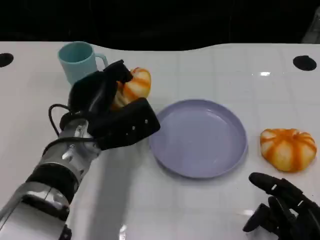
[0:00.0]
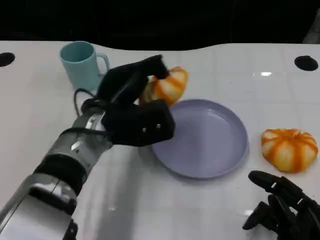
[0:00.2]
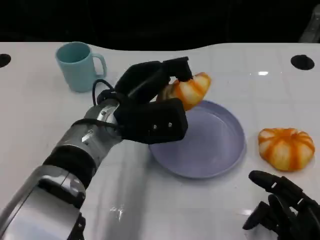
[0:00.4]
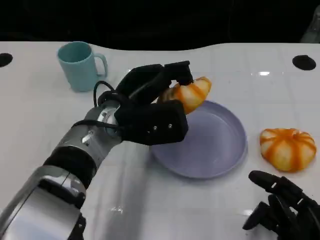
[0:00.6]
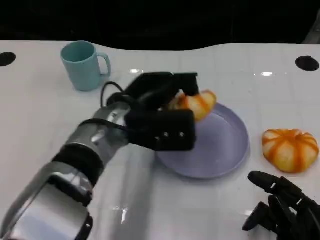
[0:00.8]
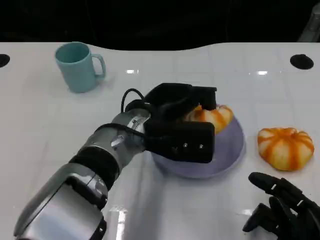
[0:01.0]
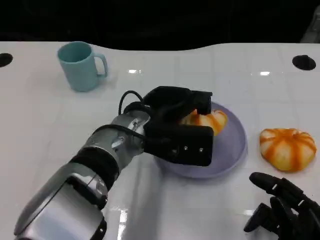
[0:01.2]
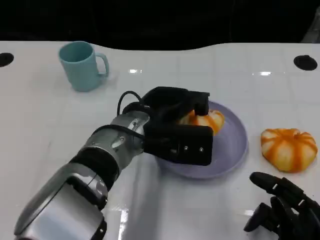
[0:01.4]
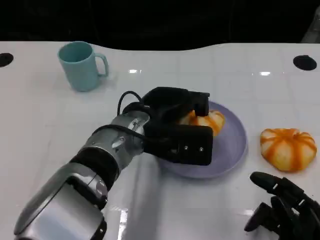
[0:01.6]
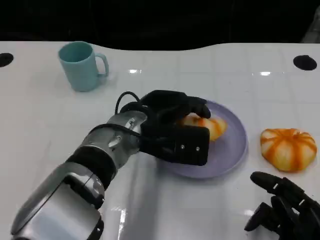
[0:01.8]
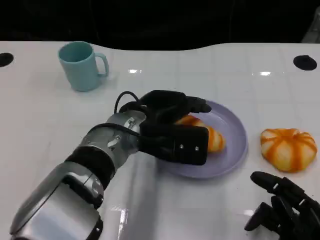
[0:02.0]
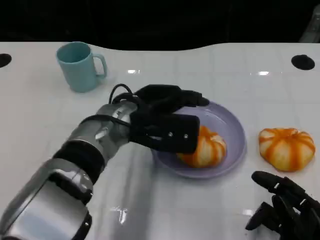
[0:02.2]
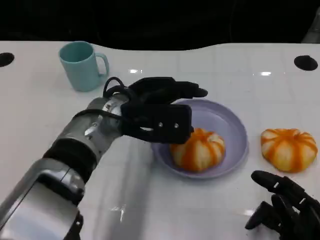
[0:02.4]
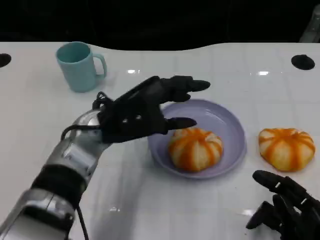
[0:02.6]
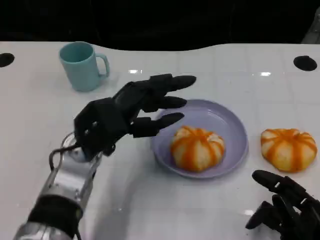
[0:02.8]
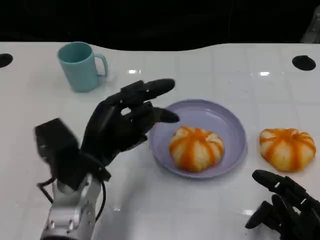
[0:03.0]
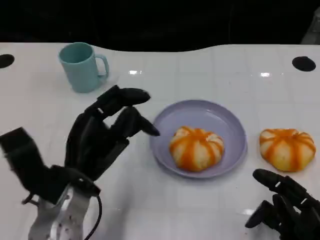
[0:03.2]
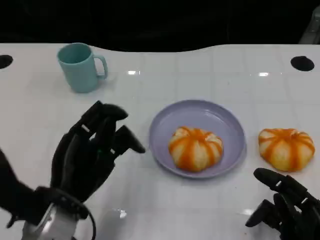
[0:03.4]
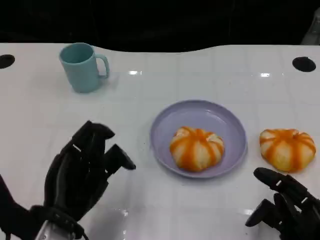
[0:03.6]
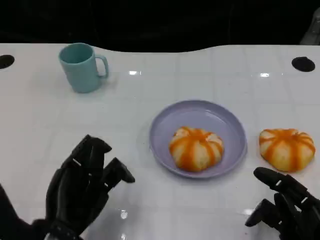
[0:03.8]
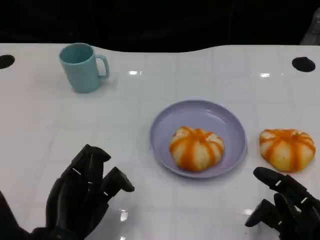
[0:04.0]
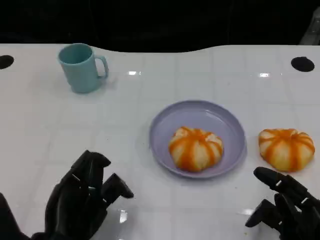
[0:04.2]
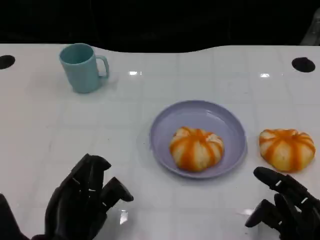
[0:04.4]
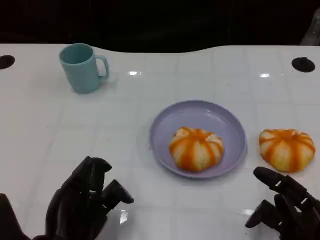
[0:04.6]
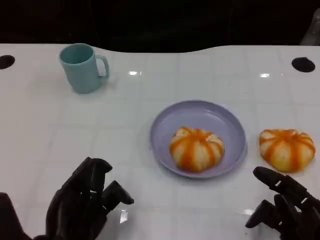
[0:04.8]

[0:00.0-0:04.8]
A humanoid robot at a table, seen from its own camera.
Task of the whole recording: Grasp the bread from the table and place it into the plate.
0:00.0 to 0:01.6: The left hand is displaced to the right by some 5 cm.
0:01.6 to 0:03.2: The left hand travels to the left and backward by some 15 cm.
0:03.2 to 0:04.8: The left hand heads backward, covering about 10 cm.

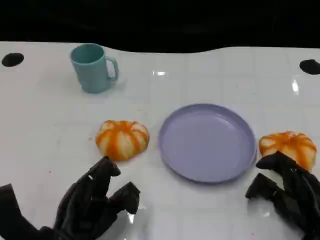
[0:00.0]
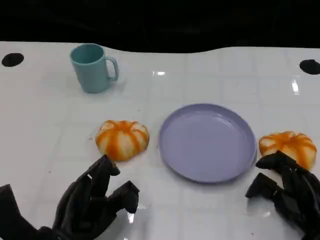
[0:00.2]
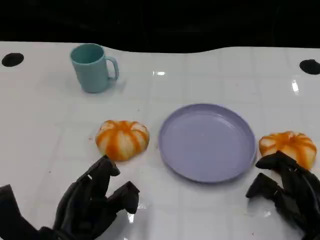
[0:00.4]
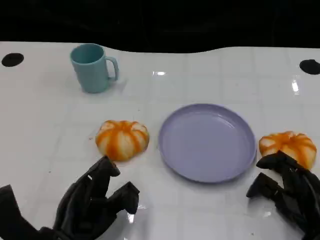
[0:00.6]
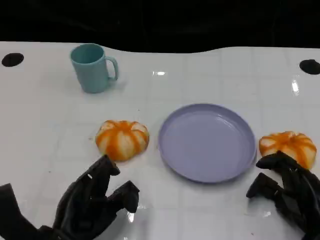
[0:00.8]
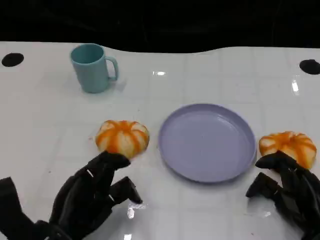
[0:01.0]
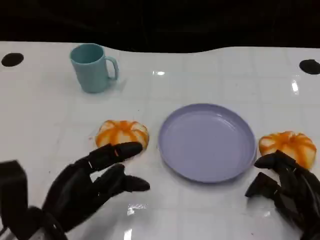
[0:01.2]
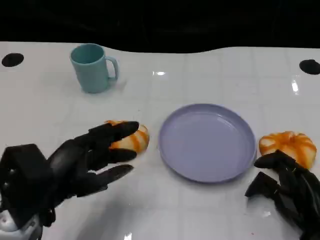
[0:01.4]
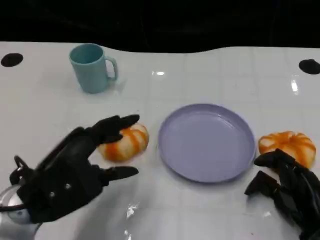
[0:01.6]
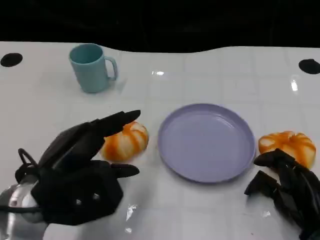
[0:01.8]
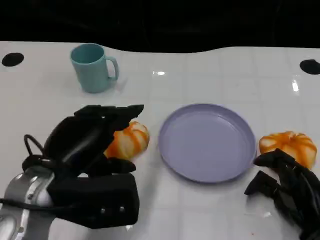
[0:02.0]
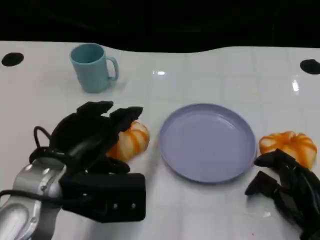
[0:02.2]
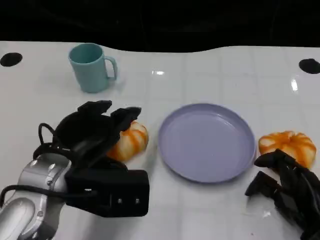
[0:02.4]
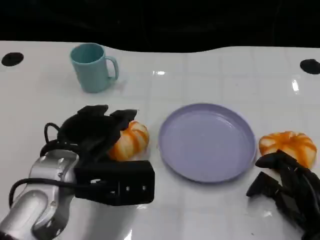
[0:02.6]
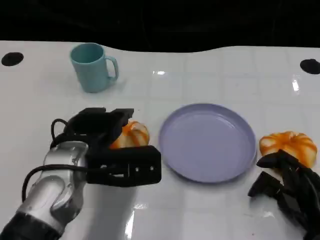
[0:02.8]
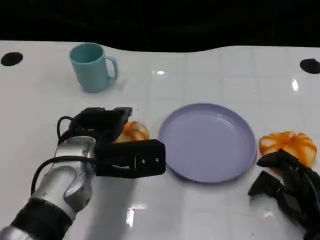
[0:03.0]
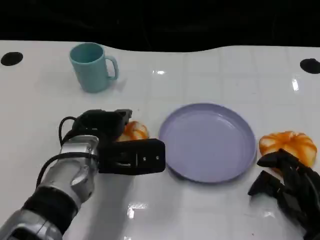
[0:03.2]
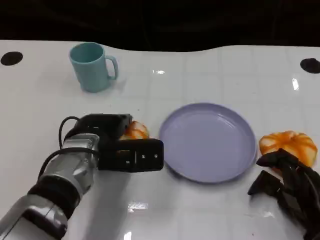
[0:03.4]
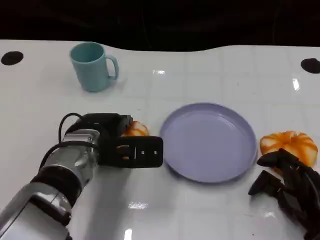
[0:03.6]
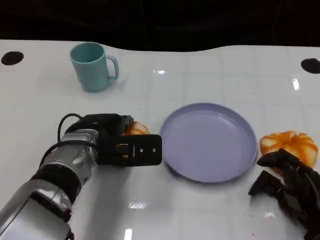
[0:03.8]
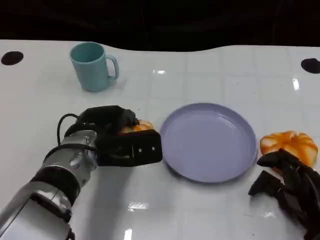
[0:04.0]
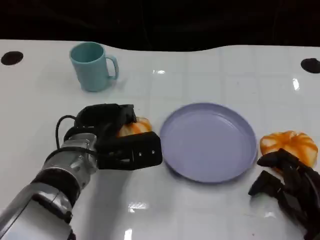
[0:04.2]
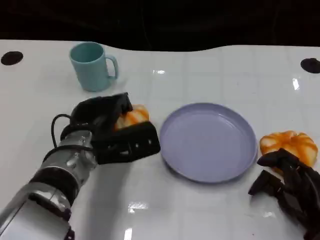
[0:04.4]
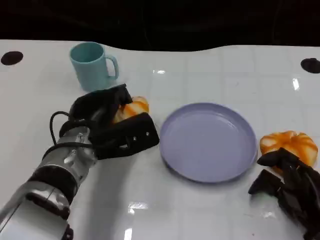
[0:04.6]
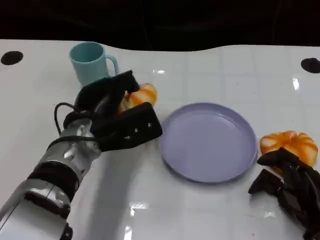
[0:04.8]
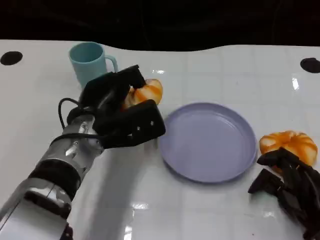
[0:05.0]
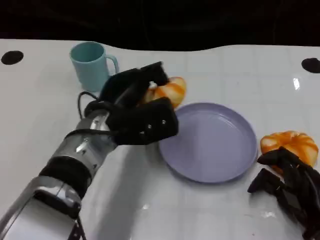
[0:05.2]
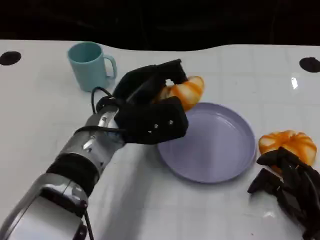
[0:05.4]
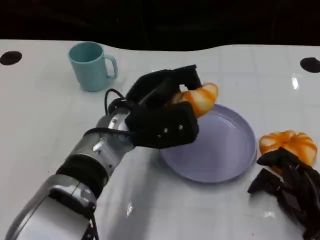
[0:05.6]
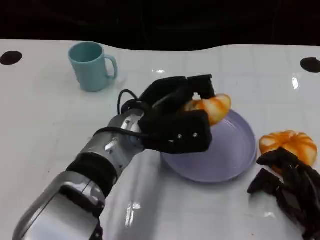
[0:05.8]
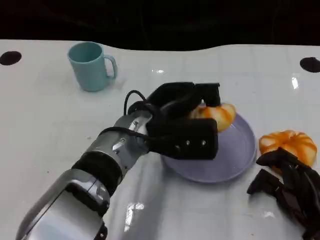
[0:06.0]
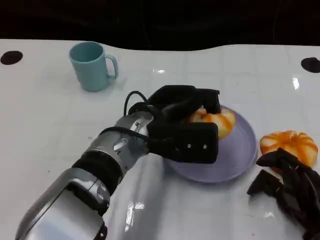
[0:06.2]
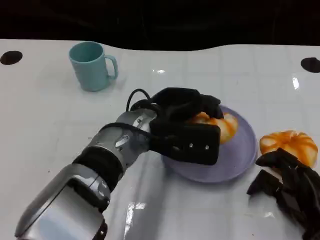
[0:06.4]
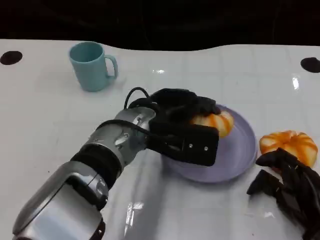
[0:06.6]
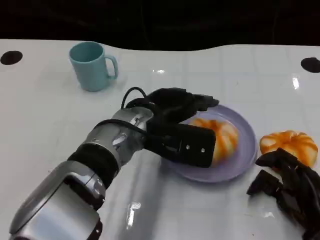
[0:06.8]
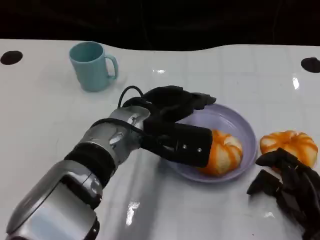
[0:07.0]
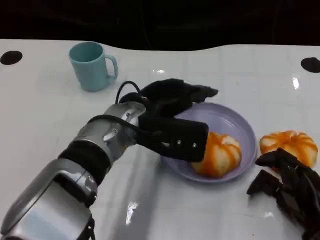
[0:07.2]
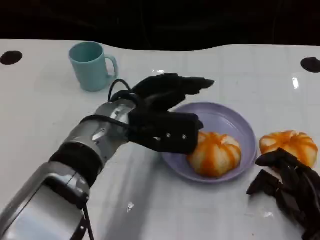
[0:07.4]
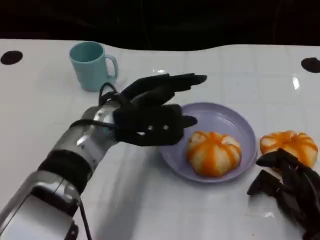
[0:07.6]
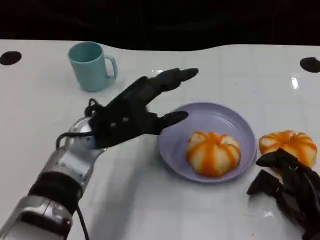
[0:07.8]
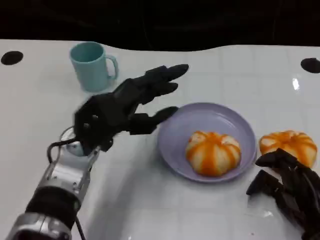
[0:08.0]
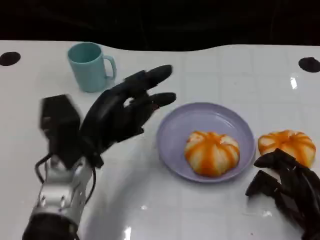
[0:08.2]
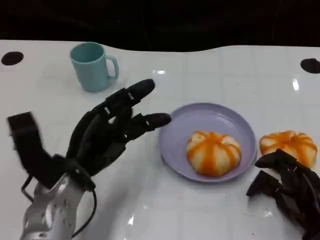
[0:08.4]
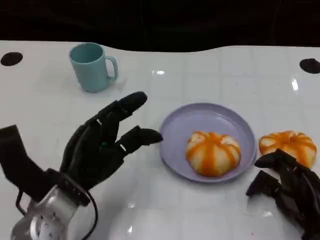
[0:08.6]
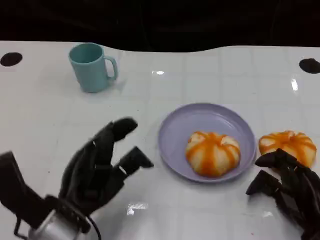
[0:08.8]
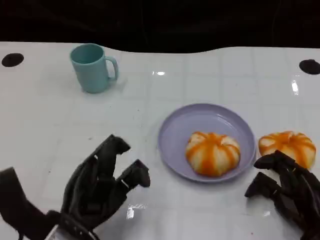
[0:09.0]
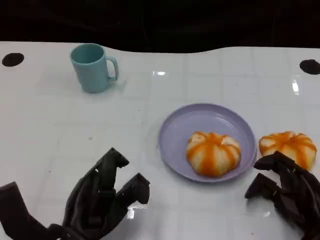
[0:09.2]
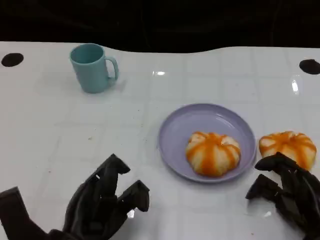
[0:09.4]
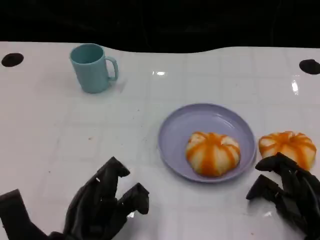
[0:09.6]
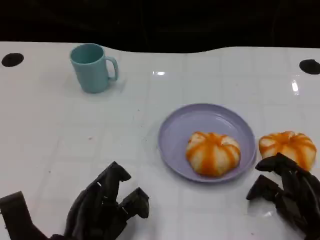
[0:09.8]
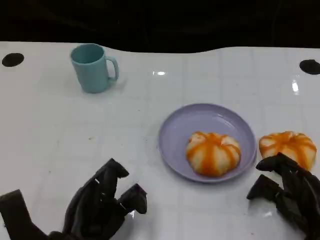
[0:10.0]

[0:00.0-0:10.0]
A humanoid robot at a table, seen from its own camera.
Task of the whole recording: Grasp the bread from the table and place it into the plate.
0:00.0 to 0:01.4: The left hand heads upward, covering some 10 cm.
0:01.4 to 0:02.8: The left hand is displaced forward and to the right by roughly 10 cm.
0:02.8 to 0:04.2: The left hand shifts by roughly 5 cm.
0:04.2 to 0:05.8: The left hand is displaced to the right and upward by about 10 cm.
0:07.2 to 0:08.6: The left hand is displaced to the left, backward and downward by approximately 15 cm.
0:08.6 to 0:10.0: The left hand heads backward, covering about 5 cm.

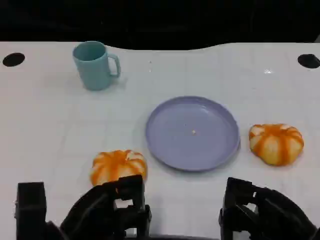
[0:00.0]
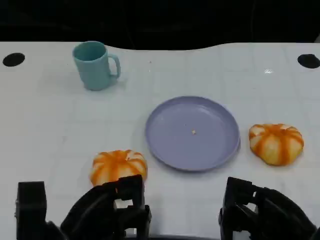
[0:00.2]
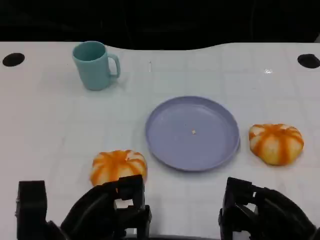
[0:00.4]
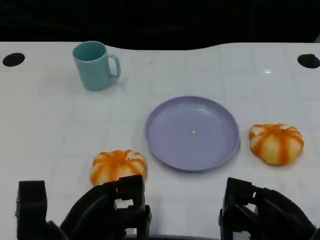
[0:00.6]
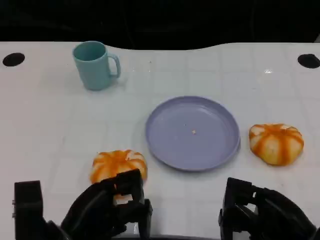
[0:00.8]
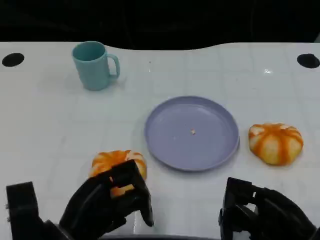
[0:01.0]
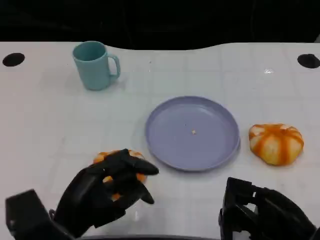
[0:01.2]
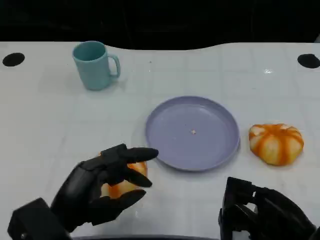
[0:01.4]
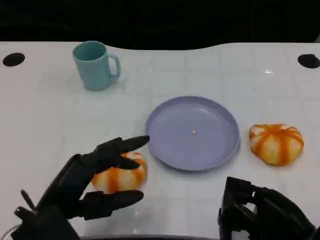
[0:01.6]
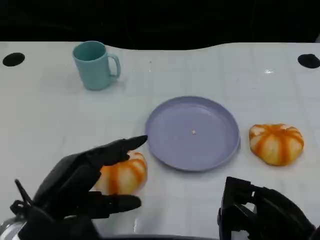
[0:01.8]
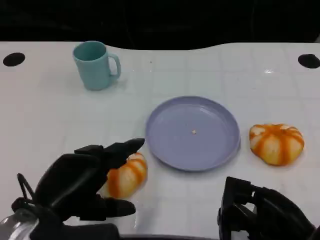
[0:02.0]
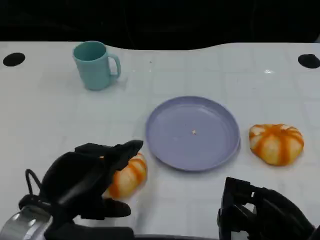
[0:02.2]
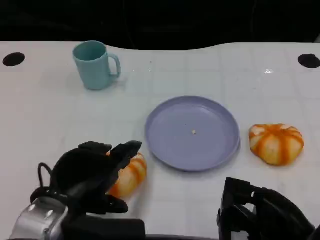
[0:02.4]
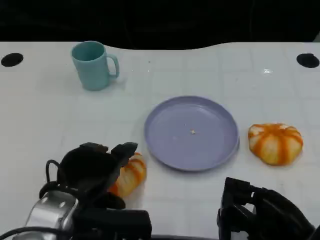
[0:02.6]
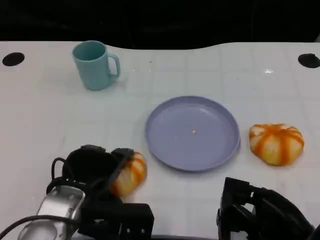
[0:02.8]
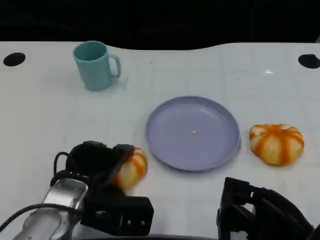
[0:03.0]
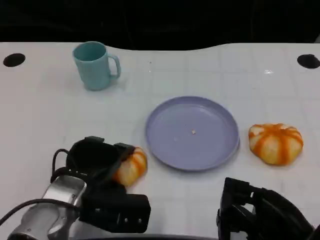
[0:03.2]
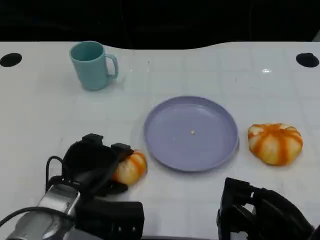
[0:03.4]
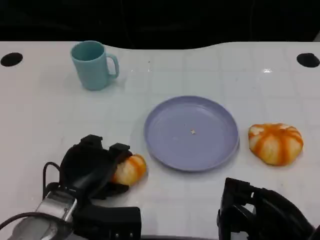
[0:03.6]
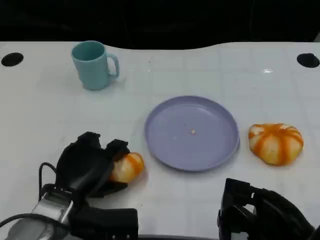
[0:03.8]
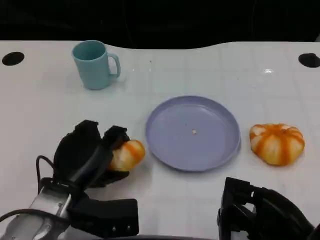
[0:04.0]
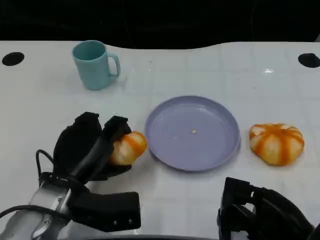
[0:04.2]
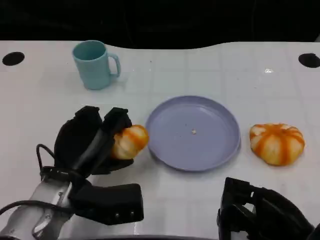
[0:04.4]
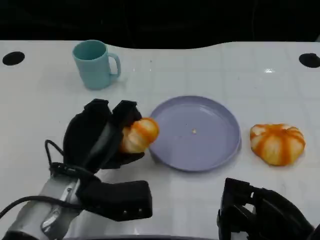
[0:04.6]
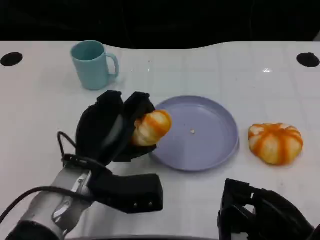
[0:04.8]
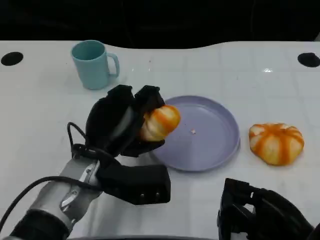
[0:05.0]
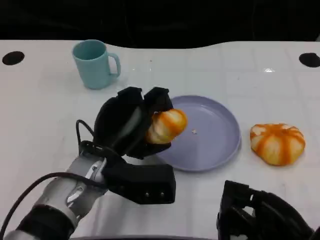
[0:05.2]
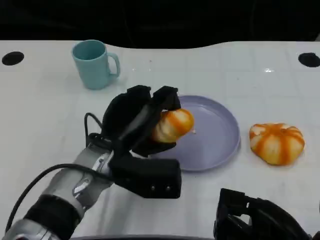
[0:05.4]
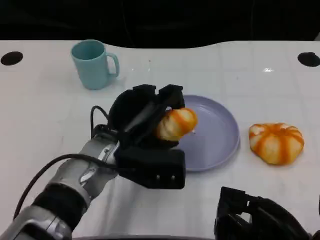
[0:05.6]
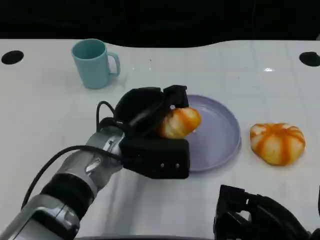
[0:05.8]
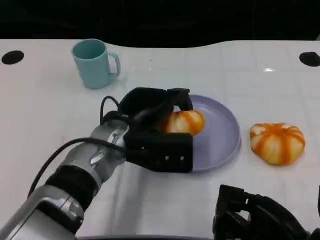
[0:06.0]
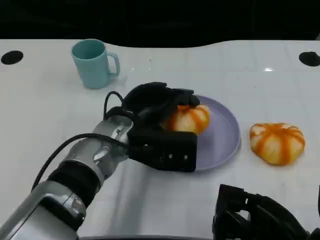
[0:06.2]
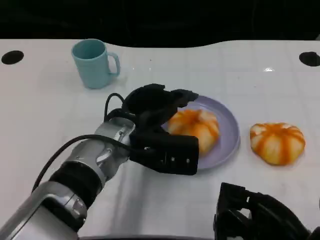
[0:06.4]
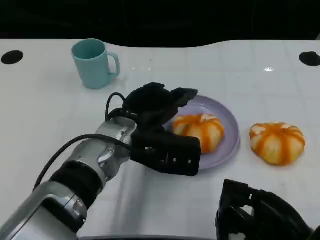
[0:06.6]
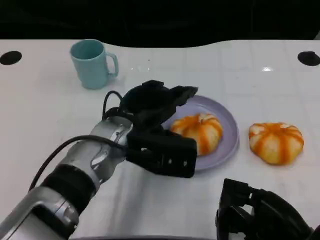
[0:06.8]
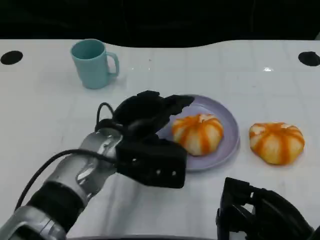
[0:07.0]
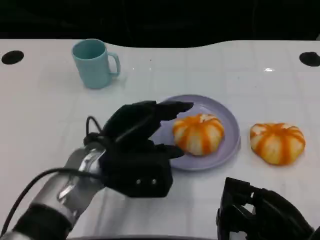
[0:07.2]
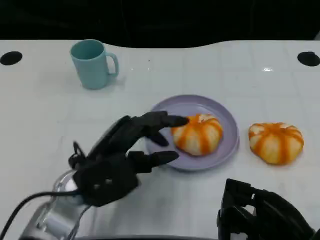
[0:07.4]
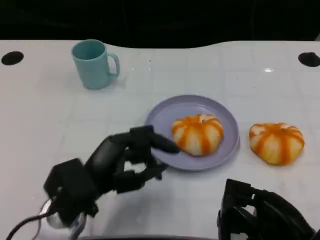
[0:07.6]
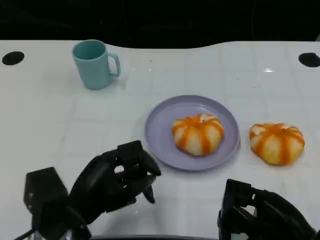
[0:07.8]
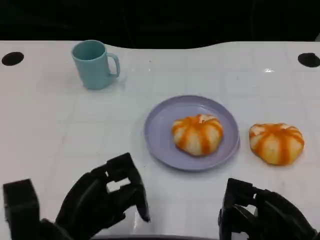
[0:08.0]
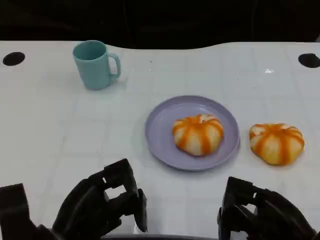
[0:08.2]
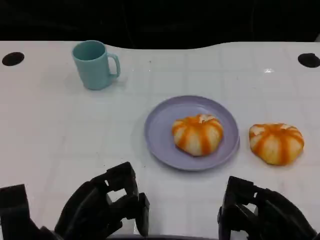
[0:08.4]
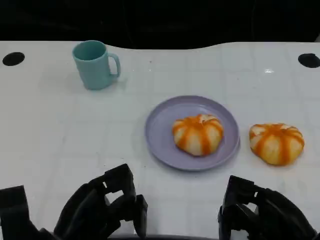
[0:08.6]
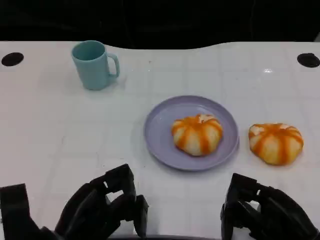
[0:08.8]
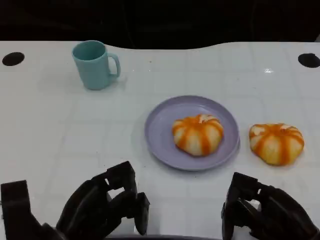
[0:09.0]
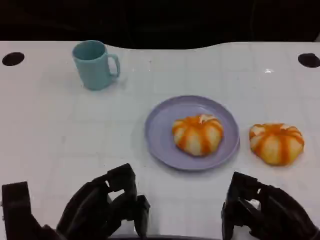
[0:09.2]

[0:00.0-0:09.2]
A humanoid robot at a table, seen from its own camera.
Task of the whole recording: Grasp the bread from the table and place it into the plate.
0:00.0 to 0:01.6: The left hand moves upward, approximately 5 cm.
0:01.6 to 0:03.0: The left hand is displaced forward by some 5 cm.
0:04.6 to 0:06.2: The left hand goes about 10 cm to the right and forward.
0:06.2 to 0:07.6: The left hand is displaced backward and to the left by about 10 cm.
0:07.6 to 0:09.2: The left hand changes place by approximately 5 cm.
